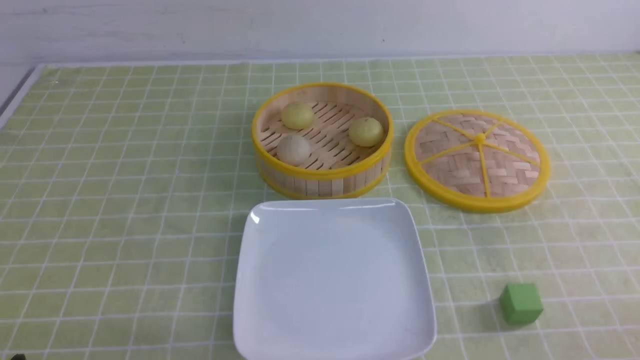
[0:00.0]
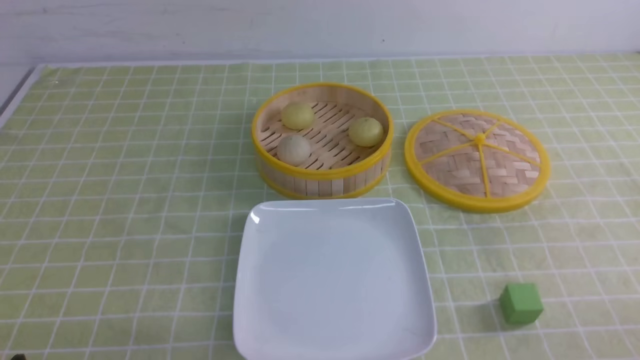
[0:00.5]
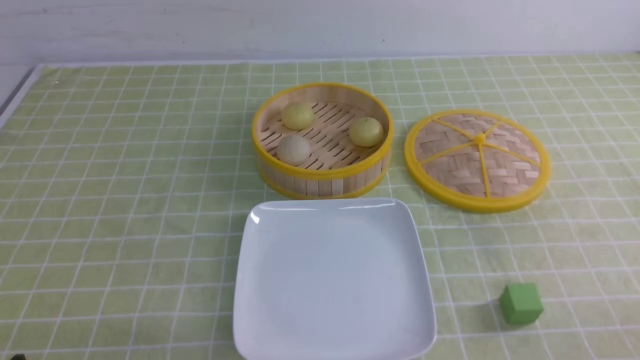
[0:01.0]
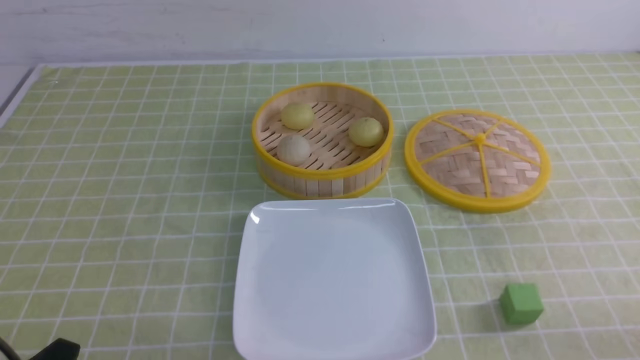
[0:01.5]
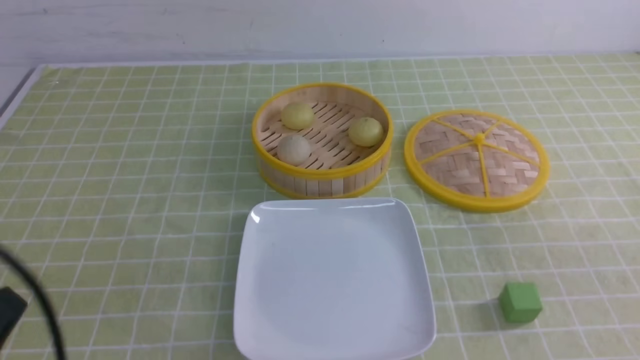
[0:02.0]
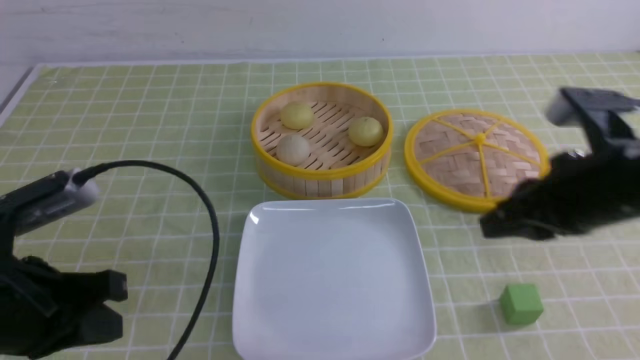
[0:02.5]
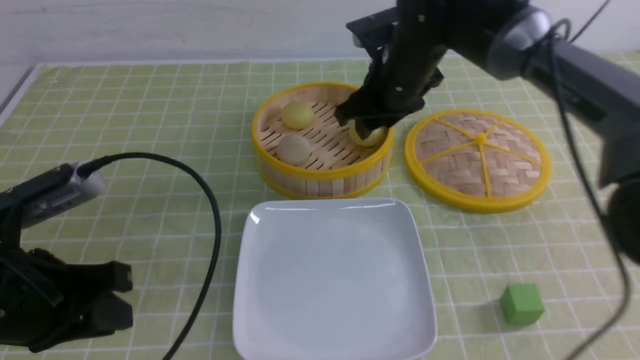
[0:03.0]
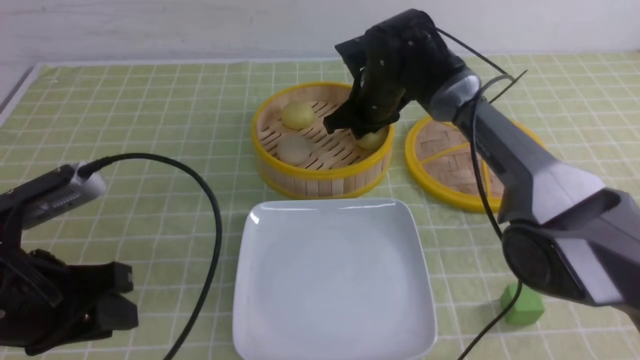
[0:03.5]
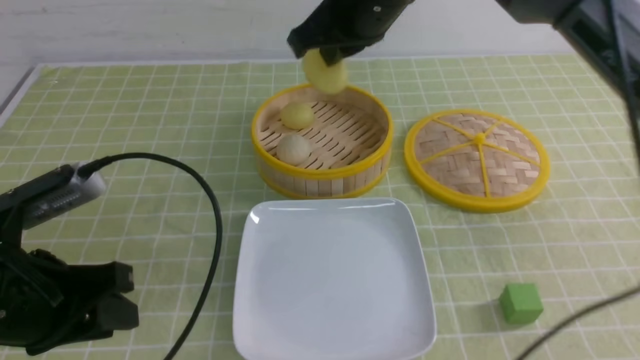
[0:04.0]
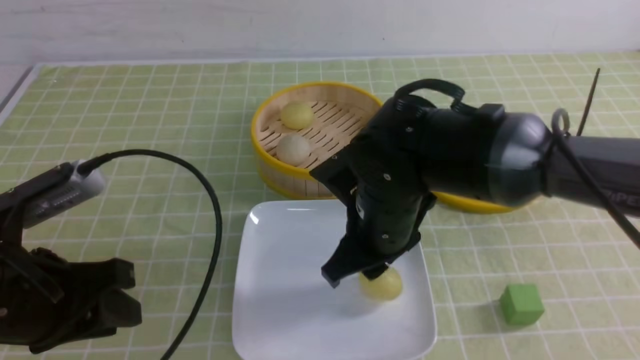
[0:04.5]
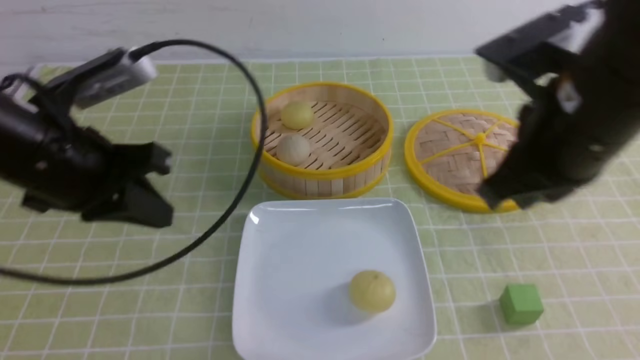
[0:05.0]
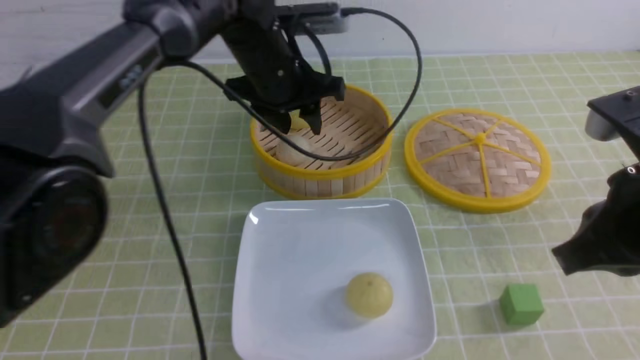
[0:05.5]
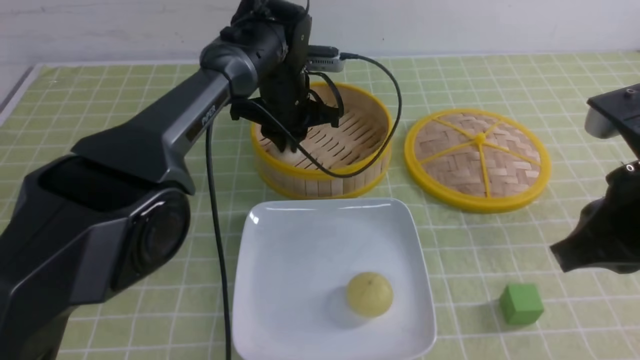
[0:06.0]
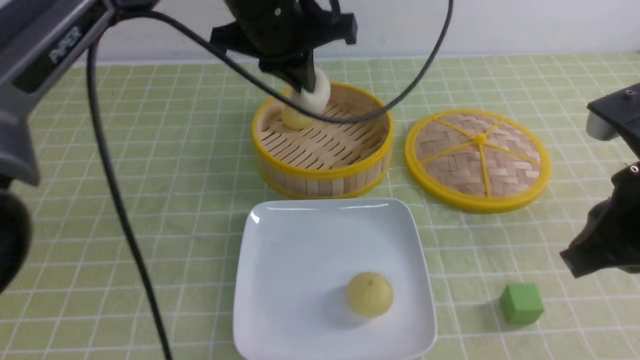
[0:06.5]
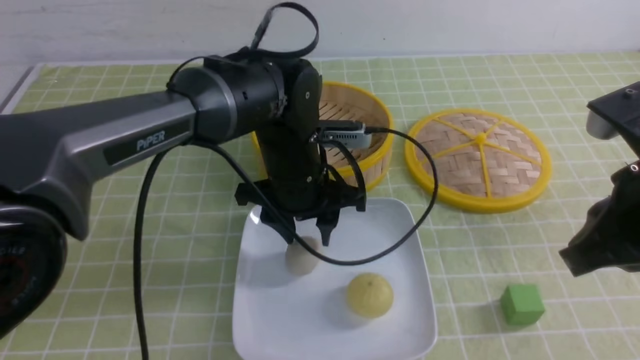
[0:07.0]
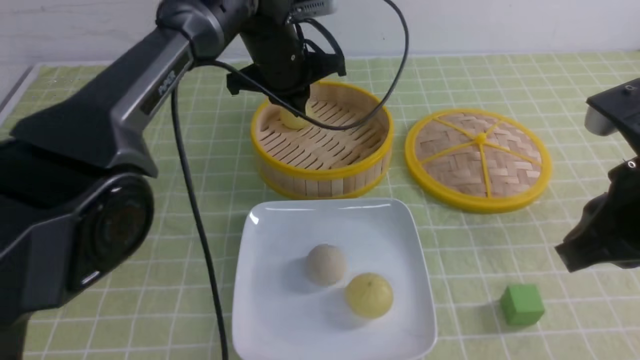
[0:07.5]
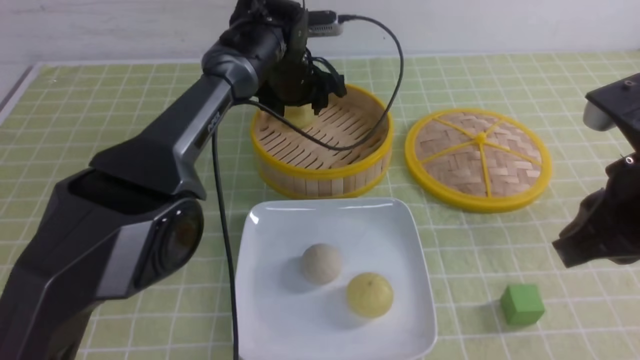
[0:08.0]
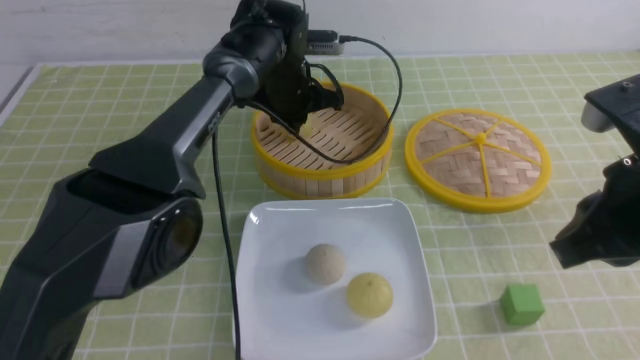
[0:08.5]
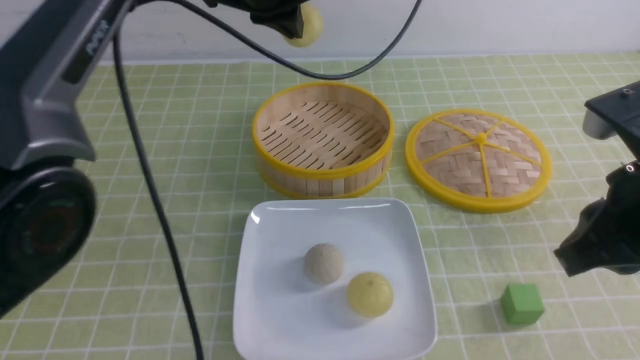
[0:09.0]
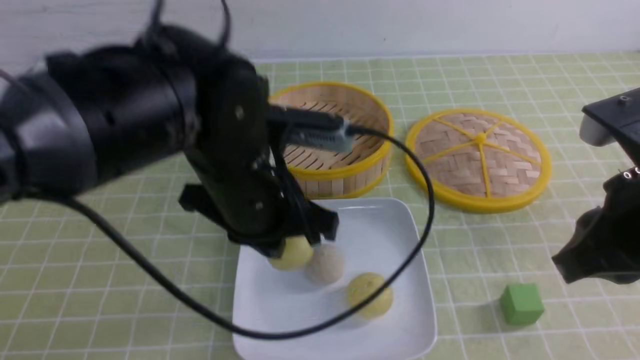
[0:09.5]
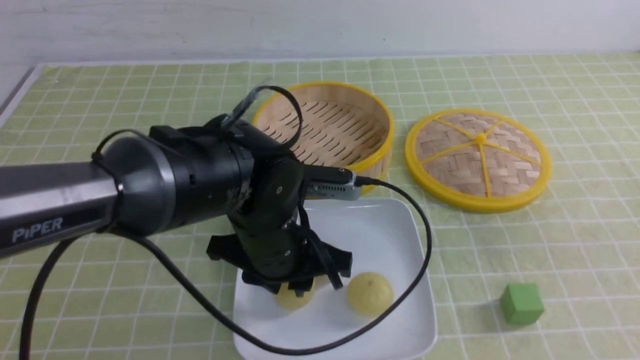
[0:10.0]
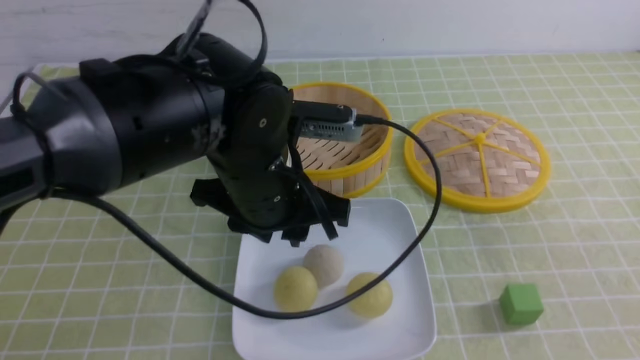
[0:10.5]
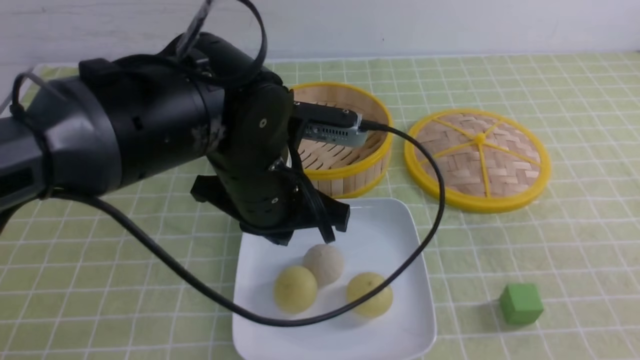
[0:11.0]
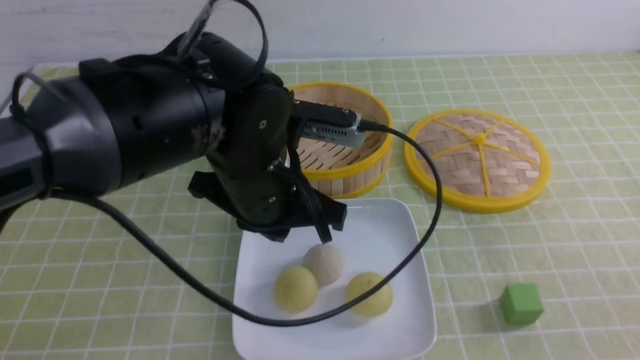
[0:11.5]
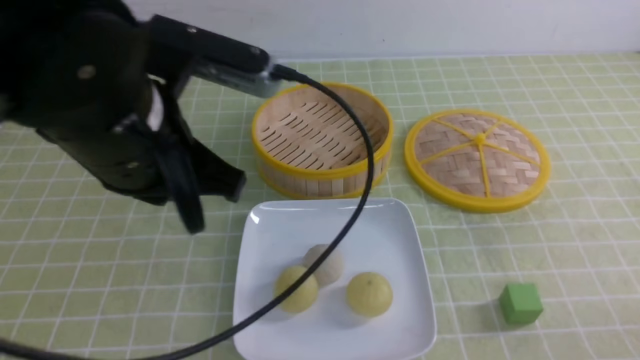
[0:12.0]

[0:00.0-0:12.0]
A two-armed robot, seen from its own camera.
Step, 0:00.0 to 0:03.0: use the right arm to grab the steamed stuffed bun that is closest to it.
Step, 0:04.0 to 0:04.5: use the right arm to put the steamed stuffed bun into the plate.
Step, 0:05.0 to 0:06.0: use the left arm to grab the steamed stuffed bun that is closest to it.
Step, 0:07.0 to 0:08.5: use the left arm to grab the steamed stuffed bun that is closest to it.
Step, 0:09.0 to 0:10.0: use the left arm to put the steamed stuffed bun into the plate.
0:00.0 to 0:02.0: The left gripper is displaced upward by about 10 cm, and closes.
0:02.0 to 0:04.0: The left gripper shifts approximately 10 cm forward, and opens. Meanwhile the right gripper goes roughly 40 cm forward and to the left, and opens and closes again.
0:04.0 to 0:06.0: The right gripper goes approximately 25 cm backward and to the right, and opens and closes again; the left gripper heads forward and to the right, covering roughly 35 cm.
0:06.0 to 0:08.0: The left gripper travels backward and back again, approximately 10 cm each way, and opens up.
0:08.0 to 0:10.0: The left gripper moves backward, some 25 cm, and closes, then opens again. The right gripper shifts about 10 cm backward and to the right.
0:10.0 to 0:12.0: The right gripper moves downward, roughly 20 cm, while the left gripper travels upward, to the left and backward by approximately 15 cm, and closes.

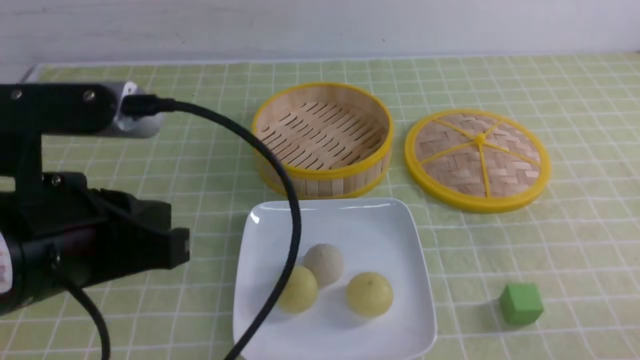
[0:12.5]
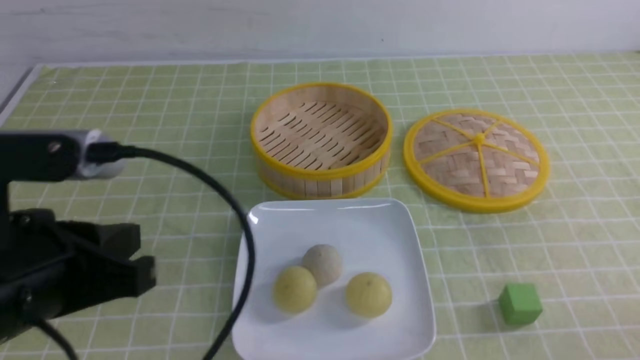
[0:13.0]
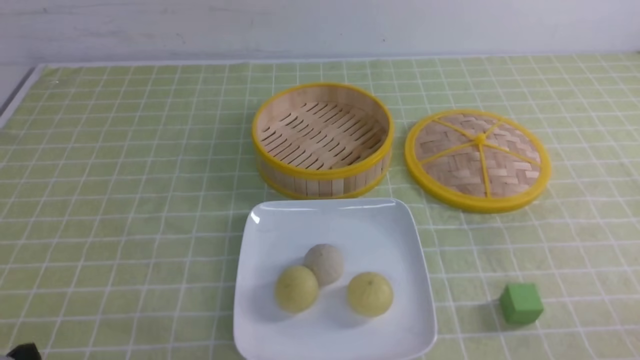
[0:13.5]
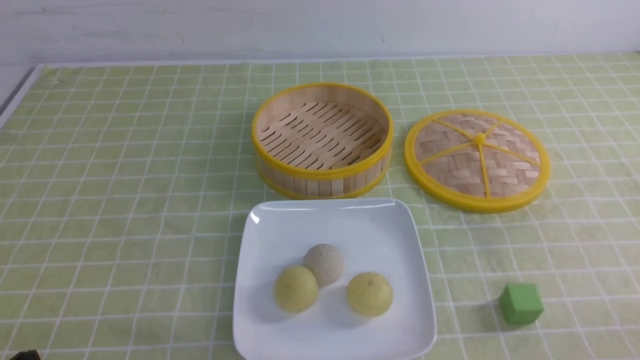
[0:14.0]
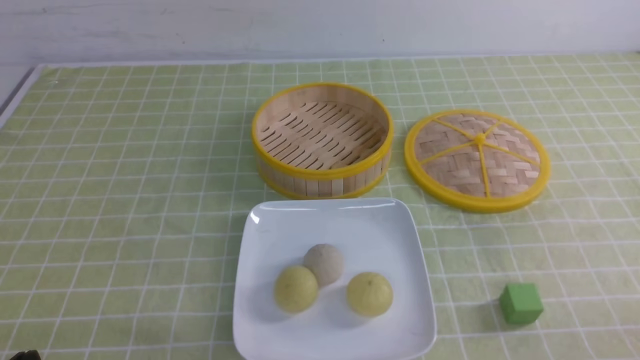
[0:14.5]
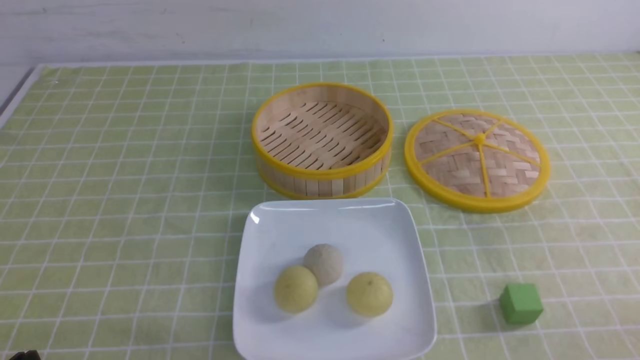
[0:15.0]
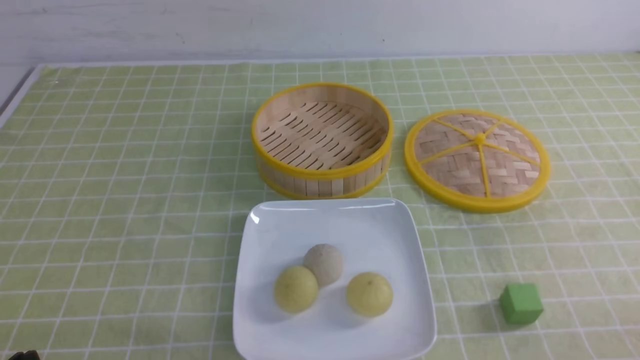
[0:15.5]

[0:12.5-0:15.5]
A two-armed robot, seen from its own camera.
0:12.5 to 0:14.0: The left gripper is displaced downward, to the left and backward by some 20 cm.
0:14.0 to 0:15.5: Neither gripper changes place.
